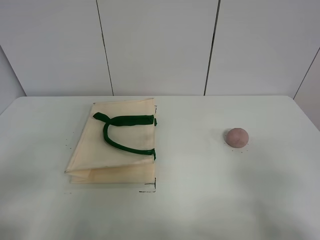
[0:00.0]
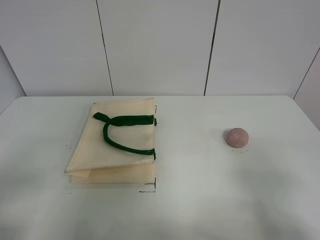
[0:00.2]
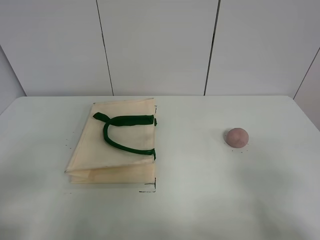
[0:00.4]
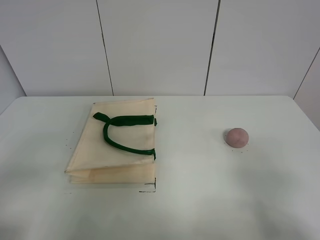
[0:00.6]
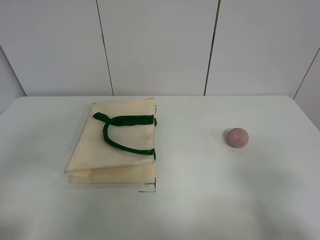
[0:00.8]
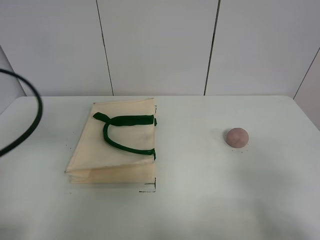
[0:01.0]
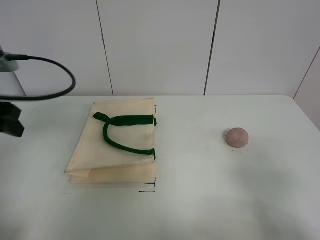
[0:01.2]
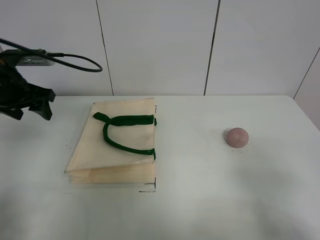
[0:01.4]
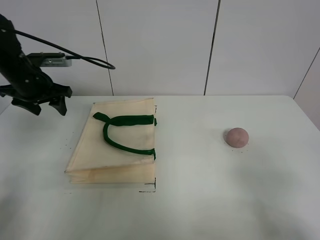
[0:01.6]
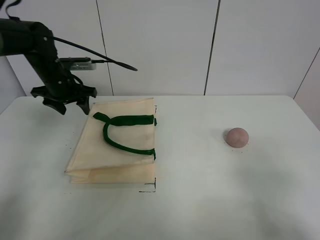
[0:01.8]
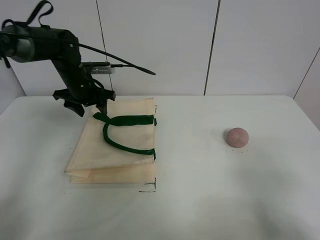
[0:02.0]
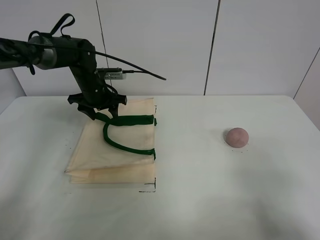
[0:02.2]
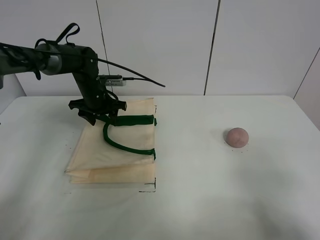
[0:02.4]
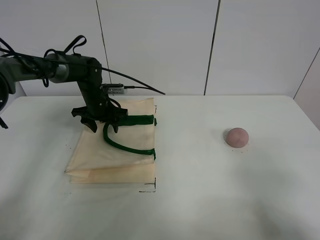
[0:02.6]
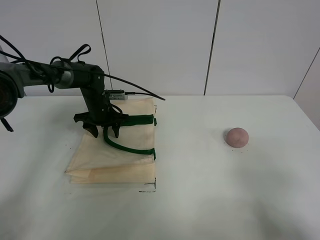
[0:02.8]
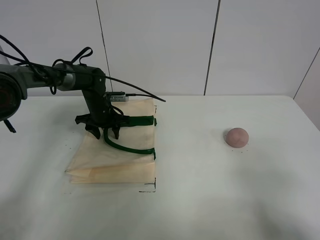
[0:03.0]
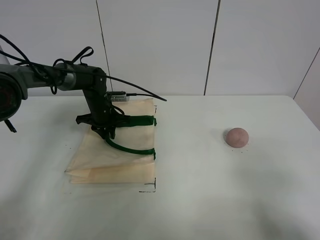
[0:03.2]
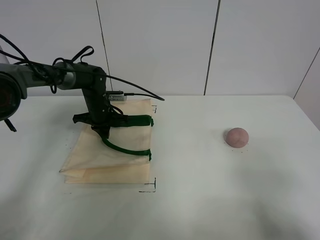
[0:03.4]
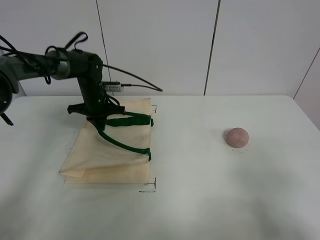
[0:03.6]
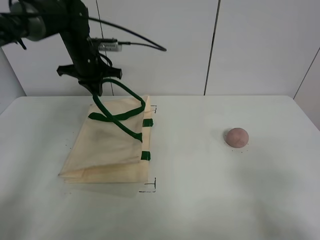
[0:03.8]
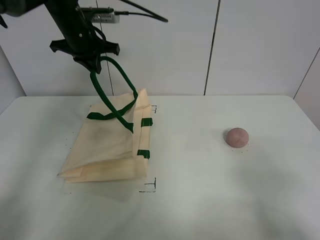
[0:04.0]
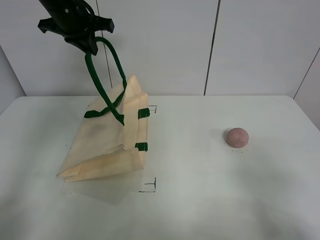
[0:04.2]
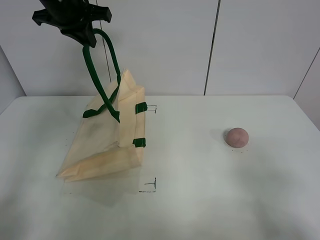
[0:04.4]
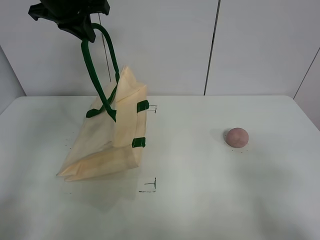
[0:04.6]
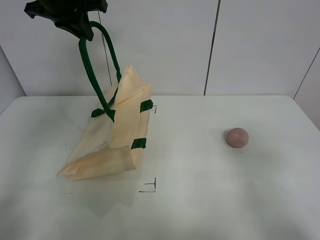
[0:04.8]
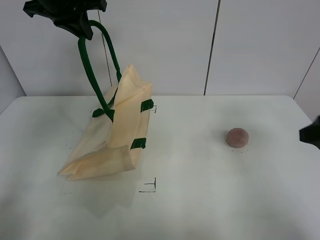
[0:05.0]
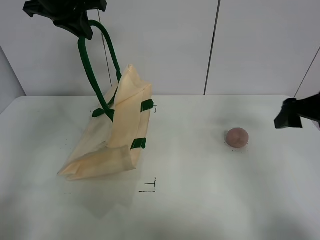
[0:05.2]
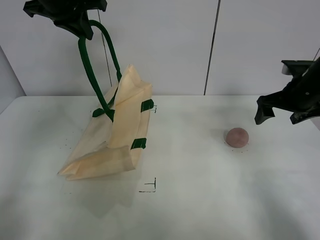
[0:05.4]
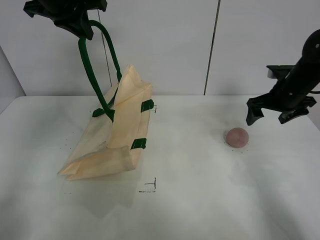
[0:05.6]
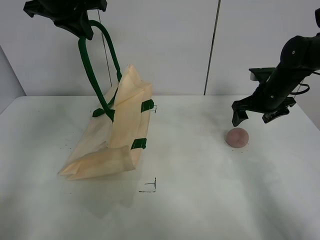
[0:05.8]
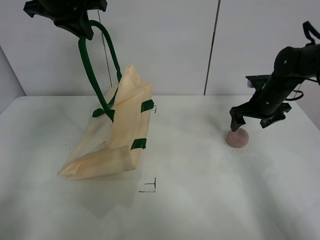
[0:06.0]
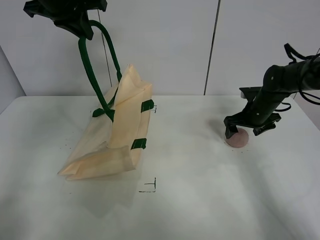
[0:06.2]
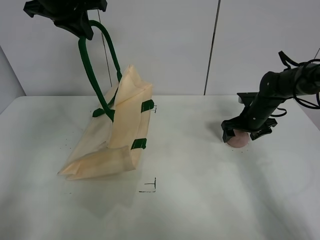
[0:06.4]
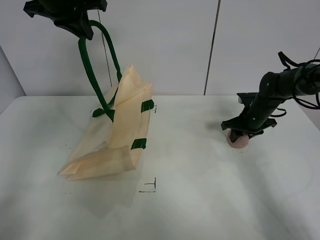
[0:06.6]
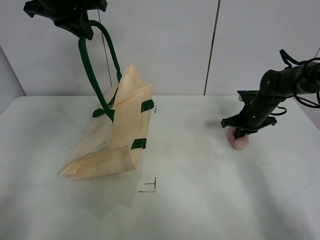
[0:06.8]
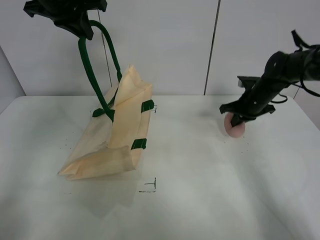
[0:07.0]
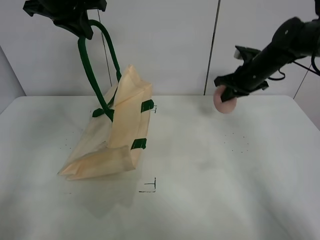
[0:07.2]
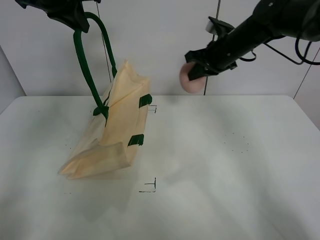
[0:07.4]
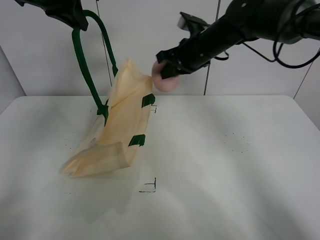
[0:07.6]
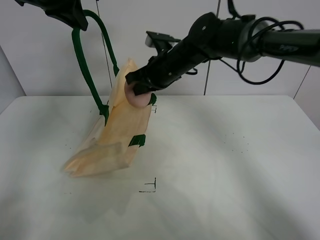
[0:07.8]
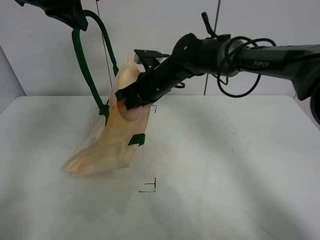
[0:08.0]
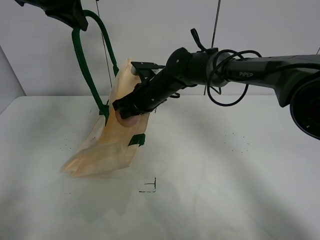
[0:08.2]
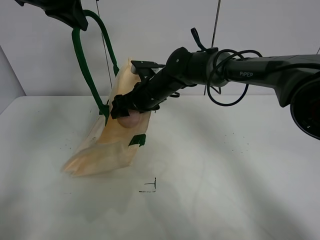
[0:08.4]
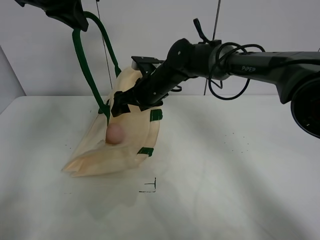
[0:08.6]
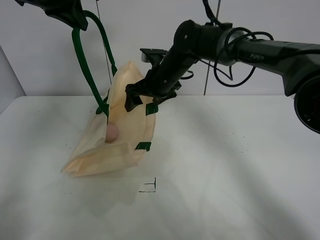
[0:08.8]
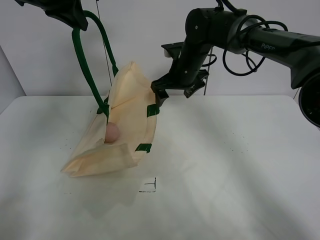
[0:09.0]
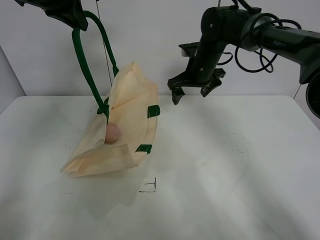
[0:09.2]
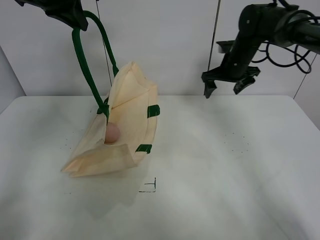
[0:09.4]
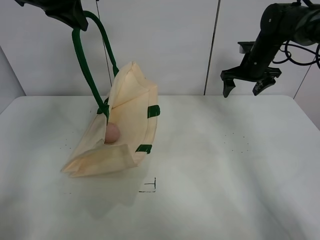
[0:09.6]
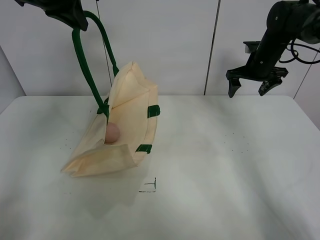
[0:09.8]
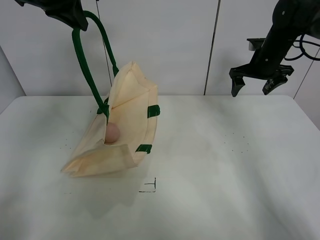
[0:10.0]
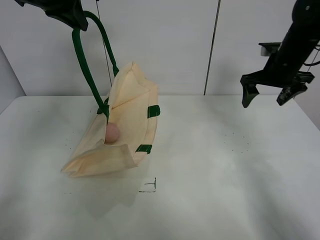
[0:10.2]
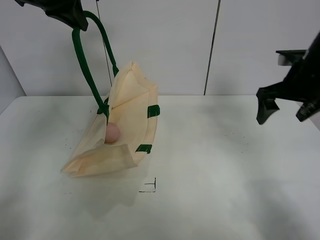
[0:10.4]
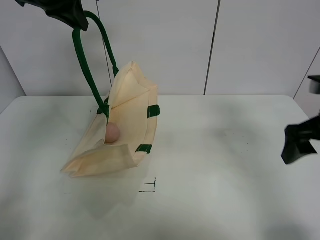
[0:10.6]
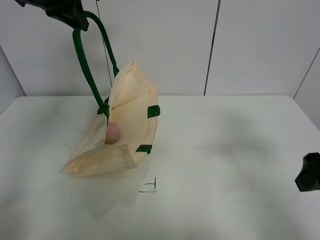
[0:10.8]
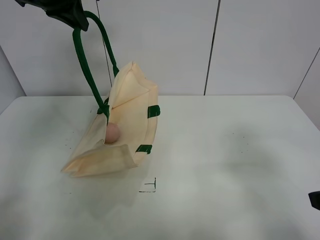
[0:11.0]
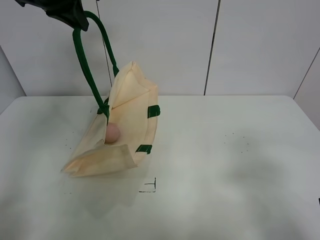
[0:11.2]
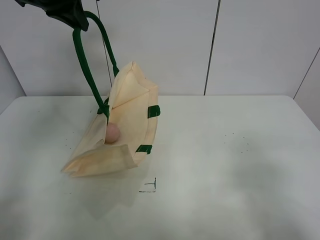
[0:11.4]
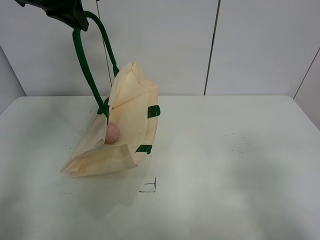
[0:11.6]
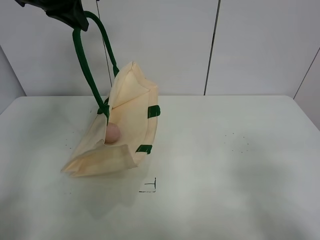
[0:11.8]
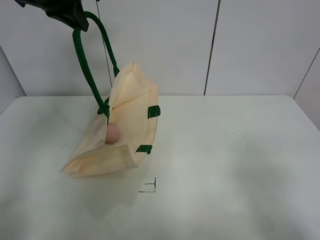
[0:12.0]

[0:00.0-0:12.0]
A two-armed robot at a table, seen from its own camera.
Task of the whole recording: open the white linen bag and put the peach in the bag.
Step, 0:00.0 to 0:04.4: Lift the handbag with left gripper.
Step, 0:04.6 to 0:06.8: Grasp the peach with right gripper.
Step, 0:07.0 to 0:09.0: Place the peach in the handbag with right gripper.
0:00.0 to 0:01.6: The left gripper travels forward by approximately 40 cm.
0:01.6 to 0:03.0: The left gripper travels downward, to the right and forward by some 20 cm.
0:03.0 to 0:04.4: The left gripper is displaced upward by about 30 cm, and closes.
0:04.4 to 0:06.0: The right gripper shifts about 40 cm forward.
0:06.0 to 0:07.6: The right gripper heads to the left and upward, covering roughly 20 cm, and closes.
0:07.6 to 0:09.0: The right gripper reaches approximately 10 cm to the left, then returns, and opens its fingers.
0:09.0 to 0:10.4: The right gripper shifts about 25 cm to the right and backward.
0:10.4 to 0:12.0: The right gripper travels backward by approximately 30 cm.

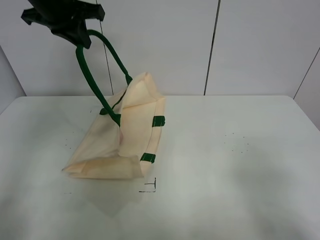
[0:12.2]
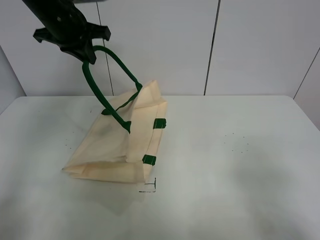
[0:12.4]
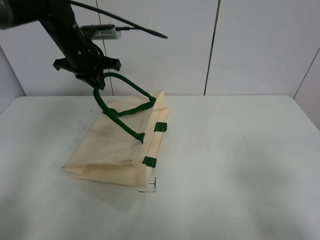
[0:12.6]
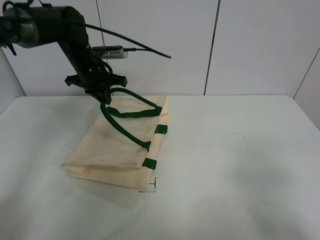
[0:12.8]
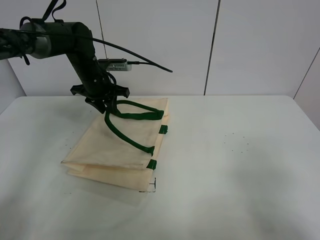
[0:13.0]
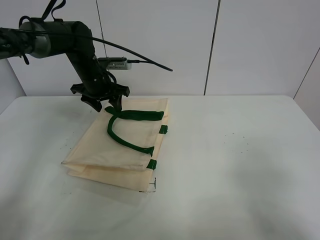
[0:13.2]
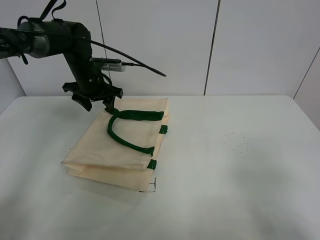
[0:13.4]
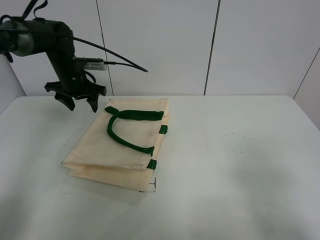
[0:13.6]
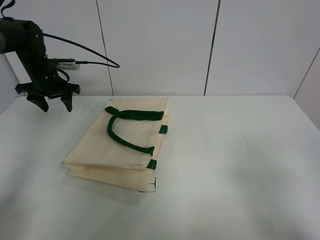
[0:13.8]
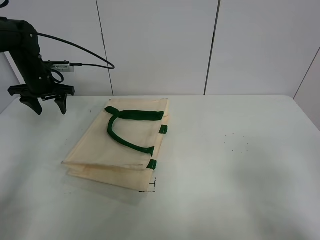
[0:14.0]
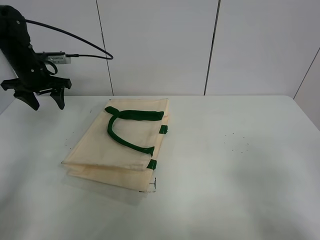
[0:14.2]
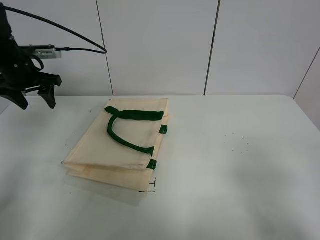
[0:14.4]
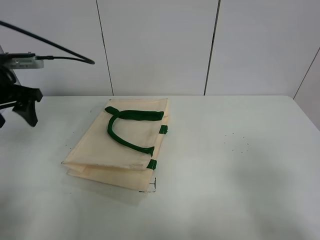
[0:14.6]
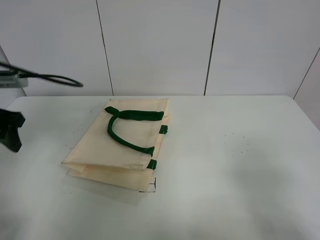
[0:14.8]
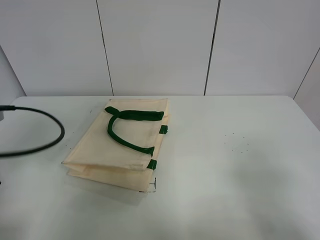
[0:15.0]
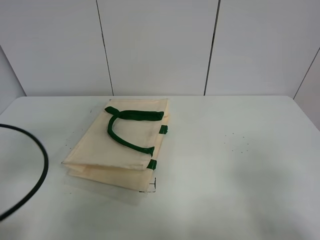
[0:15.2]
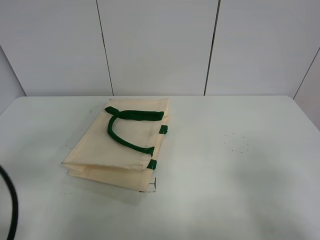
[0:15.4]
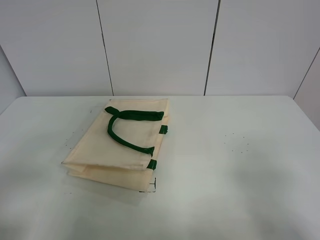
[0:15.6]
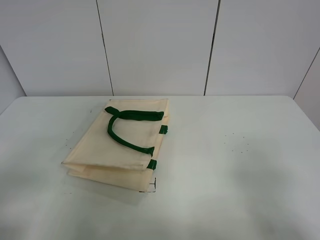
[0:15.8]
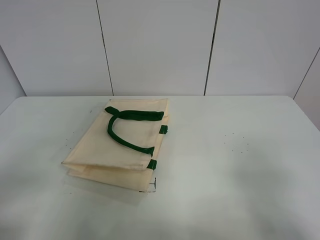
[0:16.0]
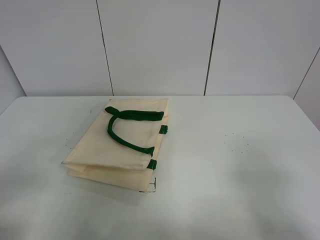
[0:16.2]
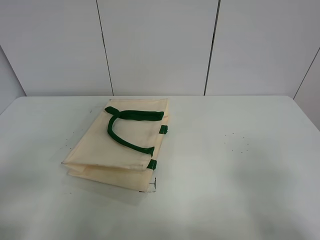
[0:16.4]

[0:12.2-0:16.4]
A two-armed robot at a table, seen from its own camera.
Task of the whole recording: open the white linen bag and put the peach in the bag.
0:12.2 to 0:13.6: The left gripper heads downward and forward, covering roughly 20 cm, and opens up.
0:13.6 to 0:15.0: The left gripper heads backward, covering about 30 cm.
0:15.0 to 0:16.4: The left gripper is displaced backward by some 15 cm.
